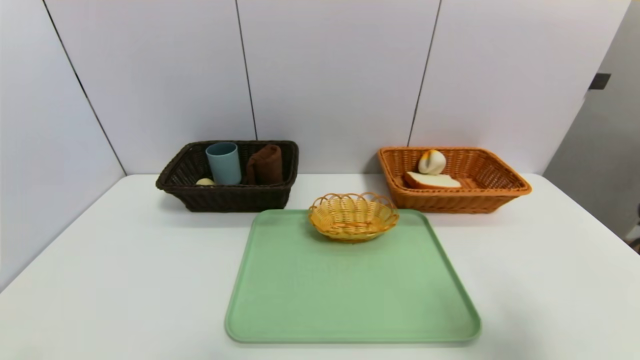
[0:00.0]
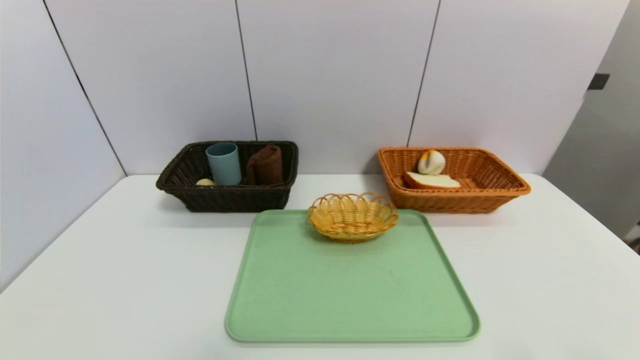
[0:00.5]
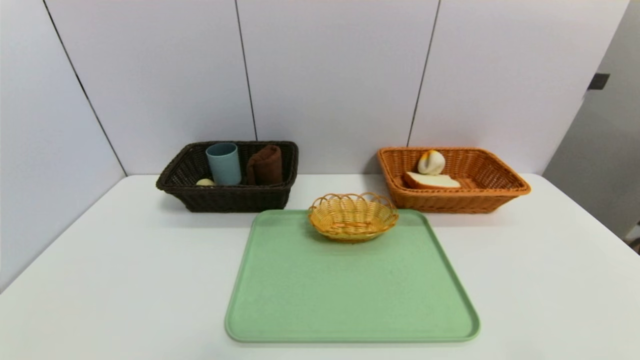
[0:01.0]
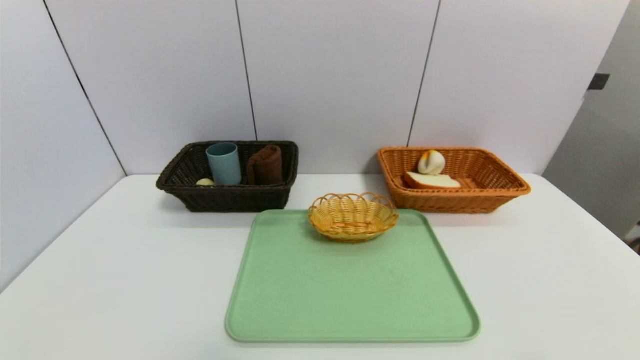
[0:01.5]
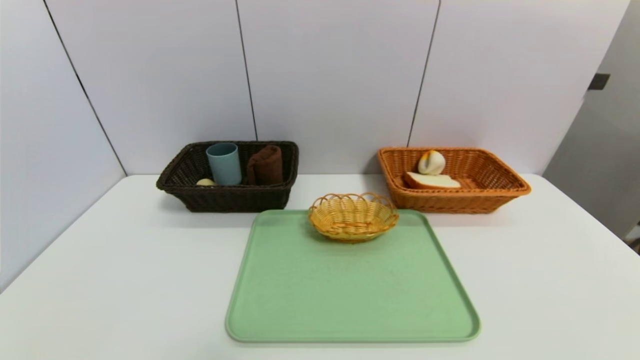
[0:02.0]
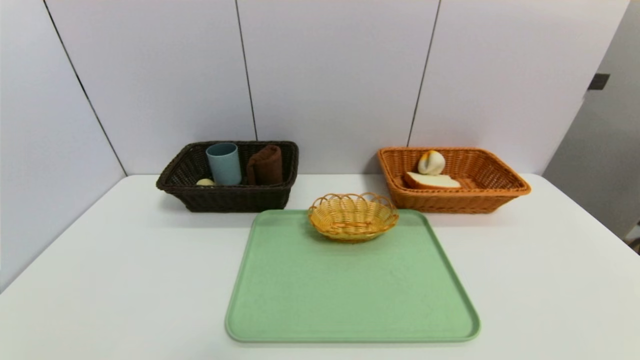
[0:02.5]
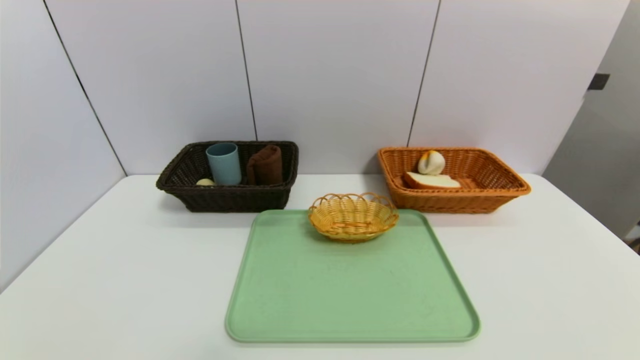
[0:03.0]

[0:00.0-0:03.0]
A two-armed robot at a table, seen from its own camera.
Task of the whole recording: place the food in the right basket with the right gripper, and place the non food items in the left basket with the left gripper.
0:00.0 to 0:01.5: The right gripper moves downward and backward, about 15 cm.
